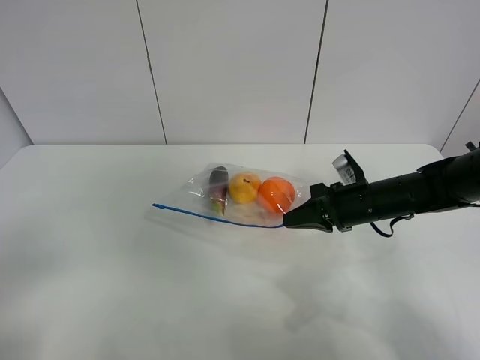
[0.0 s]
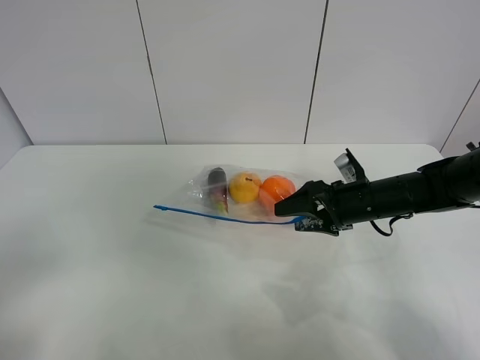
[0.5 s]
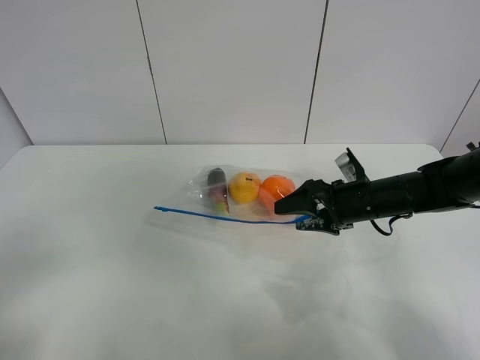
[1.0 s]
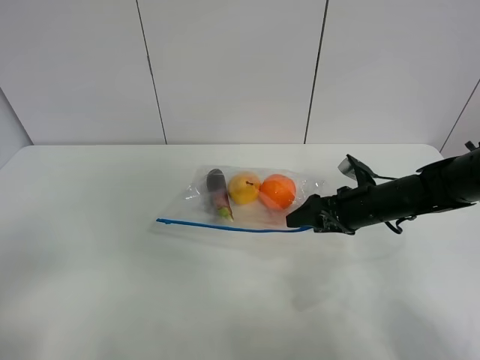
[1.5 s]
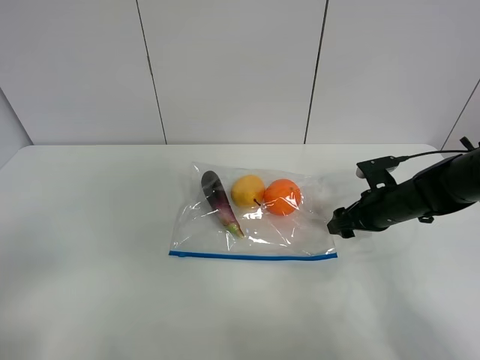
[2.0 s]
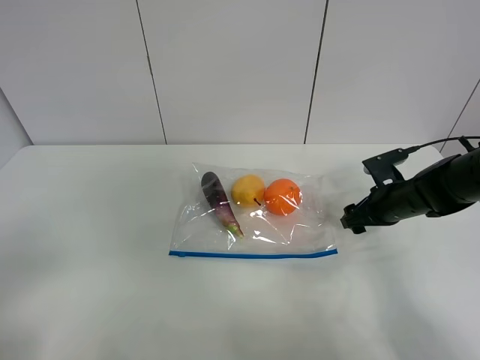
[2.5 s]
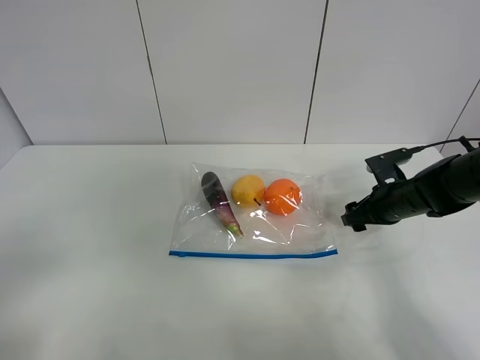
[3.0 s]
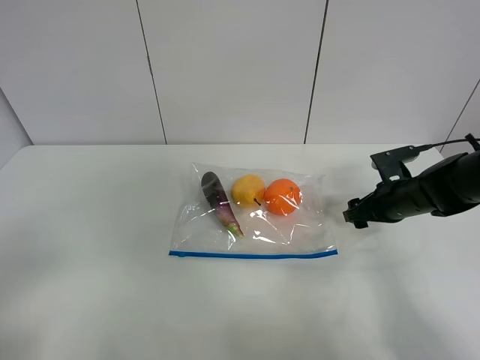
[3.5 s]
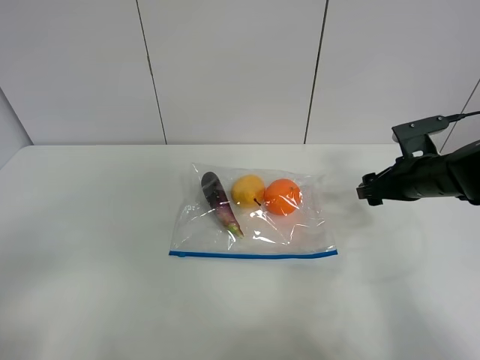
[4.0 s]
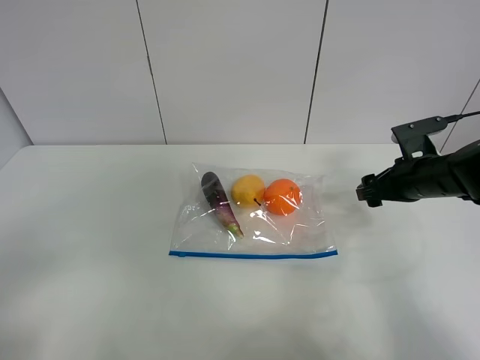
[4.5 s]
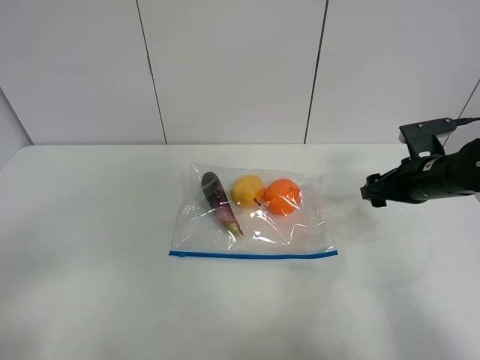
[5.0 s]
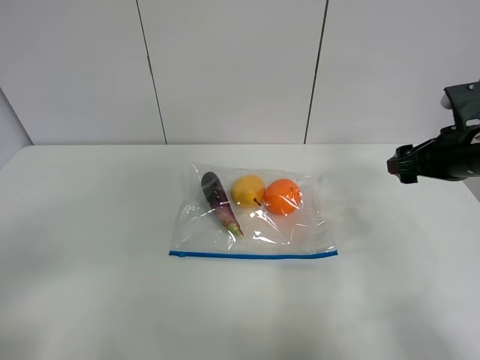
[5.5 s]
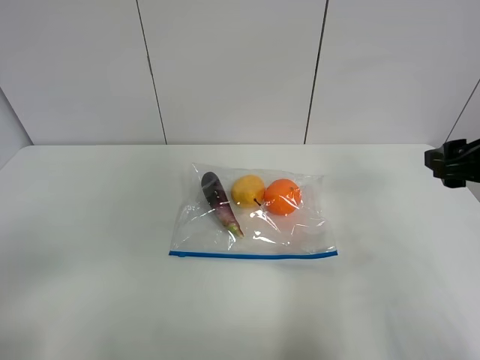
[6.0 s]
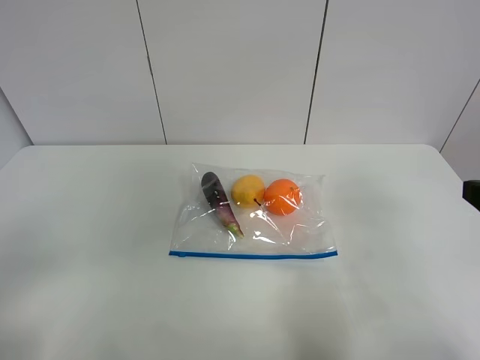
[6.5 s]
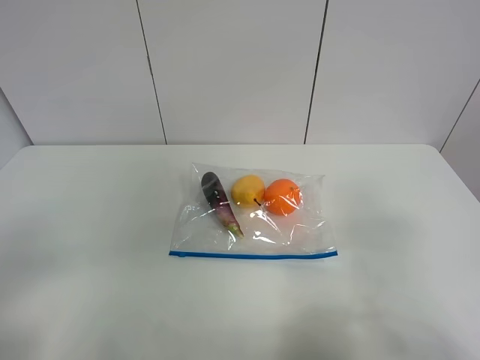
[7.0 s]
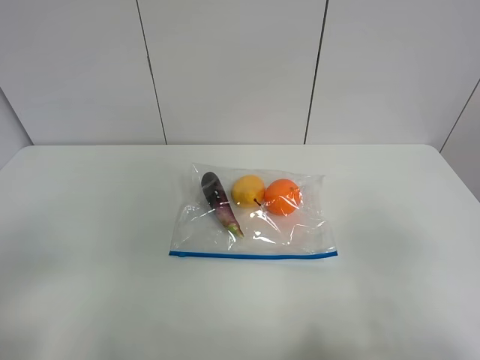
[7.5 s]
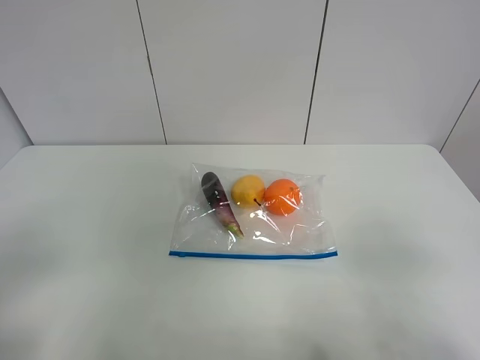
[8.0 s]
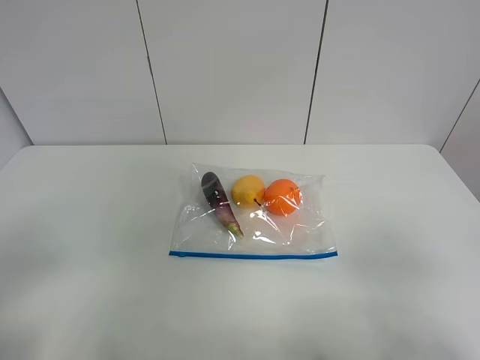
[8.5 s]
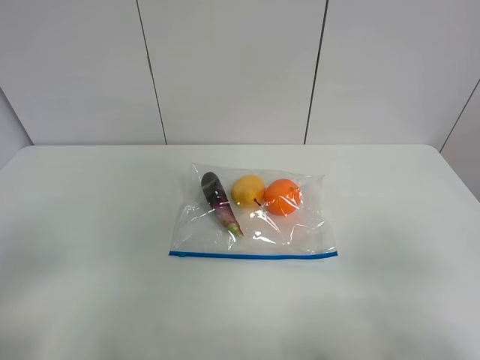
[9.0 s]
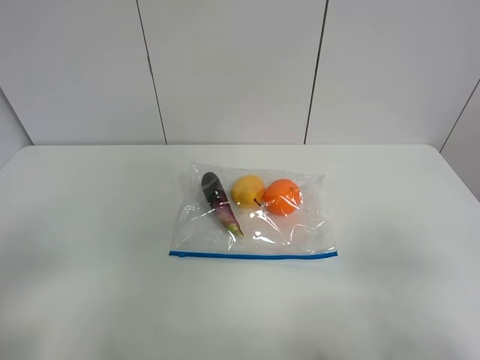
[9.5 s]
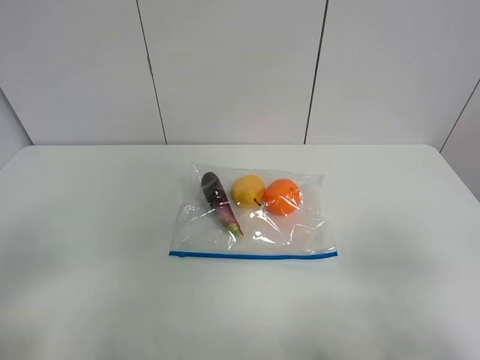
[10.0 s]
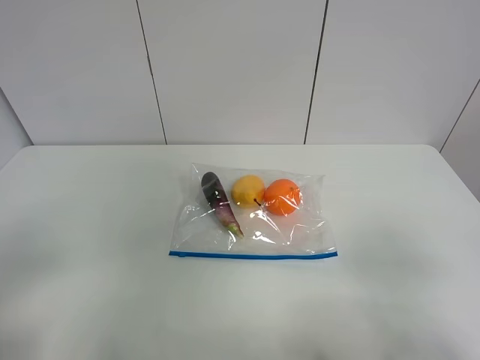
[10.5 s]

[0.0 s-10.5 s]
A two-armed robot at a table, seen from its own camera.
Step, 0.0 to 2.0 s: Place the fruit bag with right gripper.
0.0 to 2.0 s: The right gripper moves to the right, roughly 5 cm, and opens.
2.0 to 4.0 s: The right gripper moves upward, roughly 5 cm.
4.0 to 6.5 s: The right gripper goes roughly 25 cm backward and upward.
8.5 to 10.5 s: Both grippers stay about where they are.

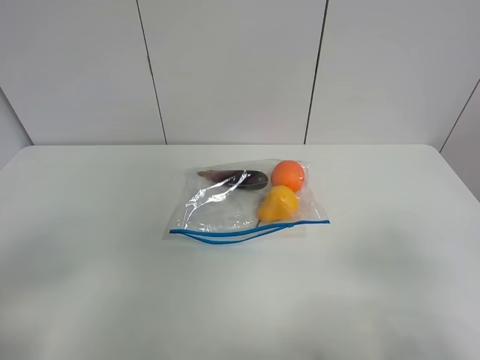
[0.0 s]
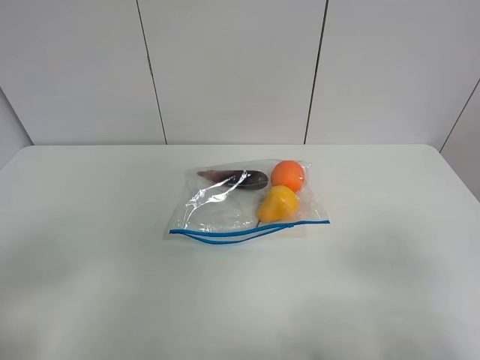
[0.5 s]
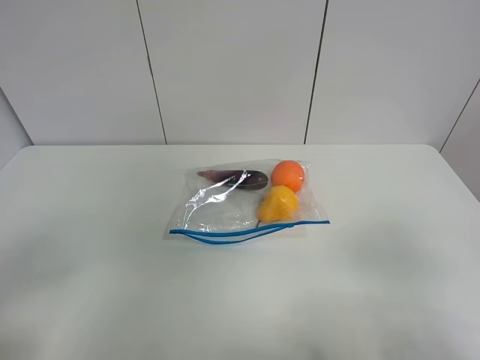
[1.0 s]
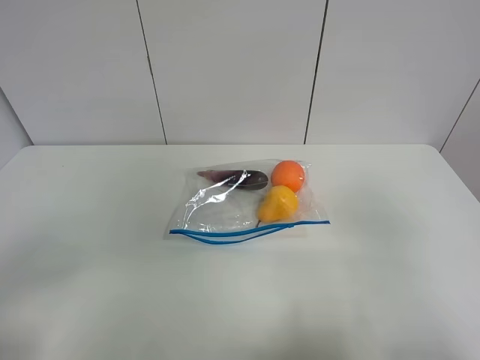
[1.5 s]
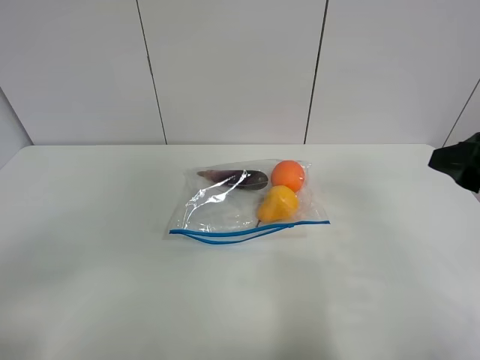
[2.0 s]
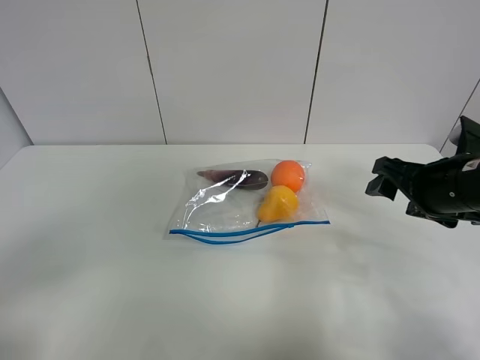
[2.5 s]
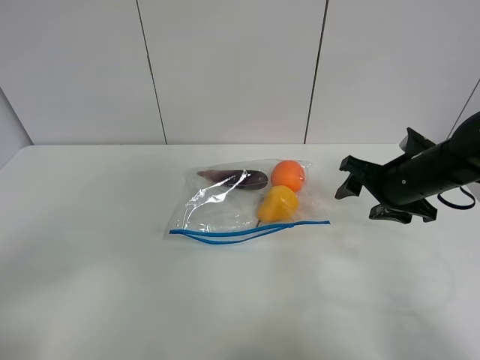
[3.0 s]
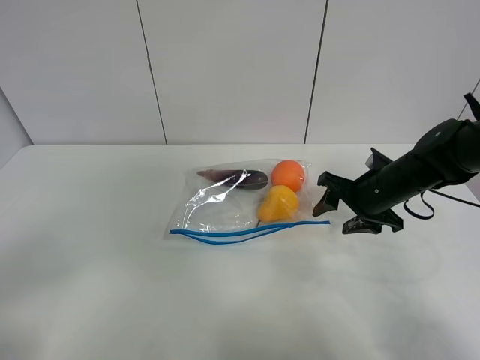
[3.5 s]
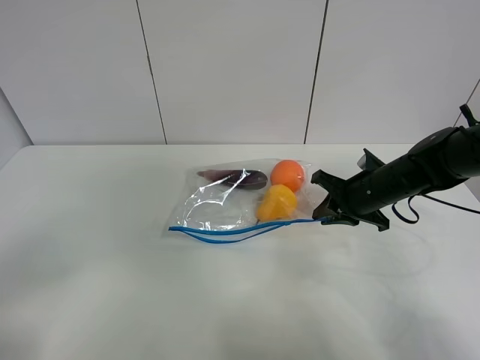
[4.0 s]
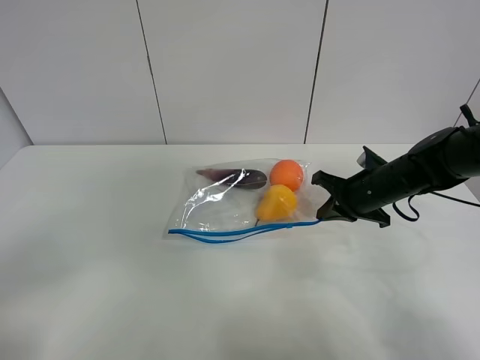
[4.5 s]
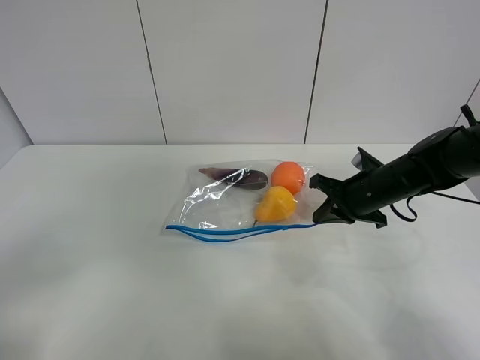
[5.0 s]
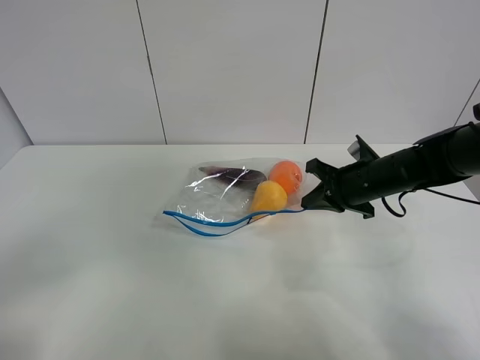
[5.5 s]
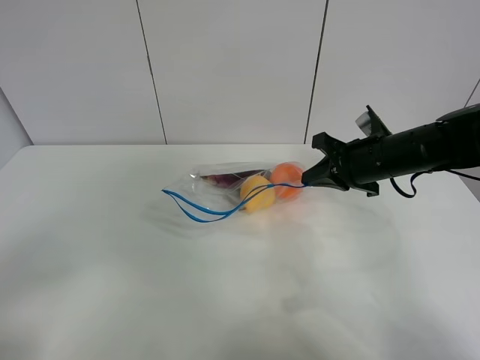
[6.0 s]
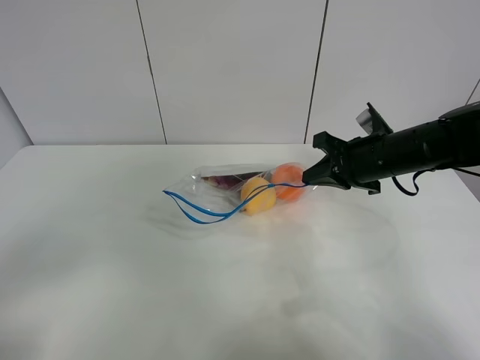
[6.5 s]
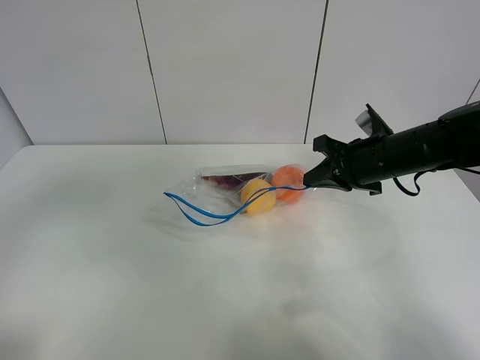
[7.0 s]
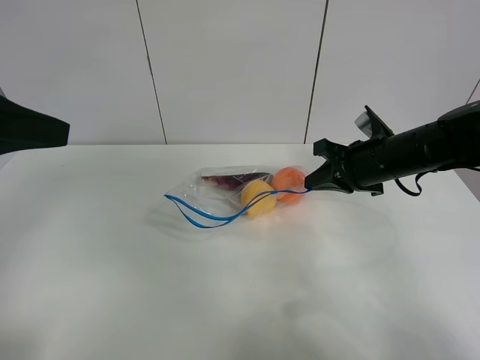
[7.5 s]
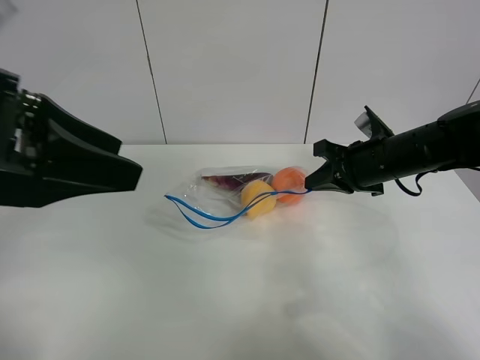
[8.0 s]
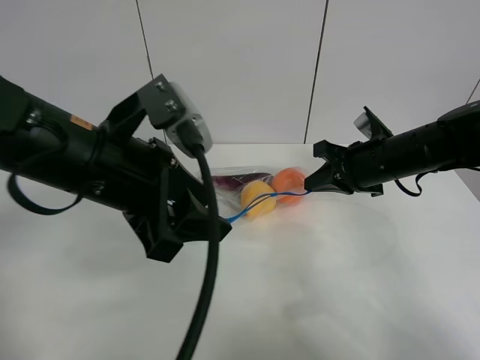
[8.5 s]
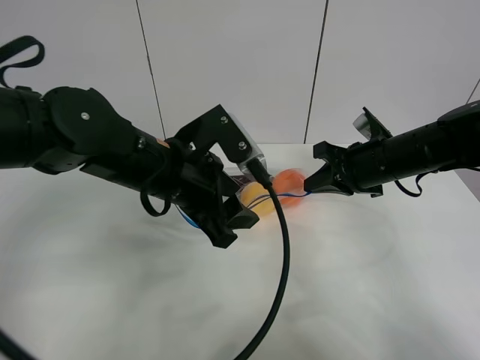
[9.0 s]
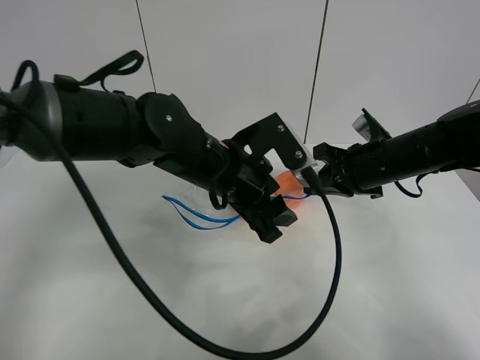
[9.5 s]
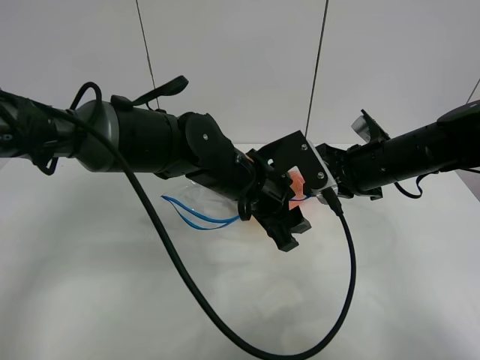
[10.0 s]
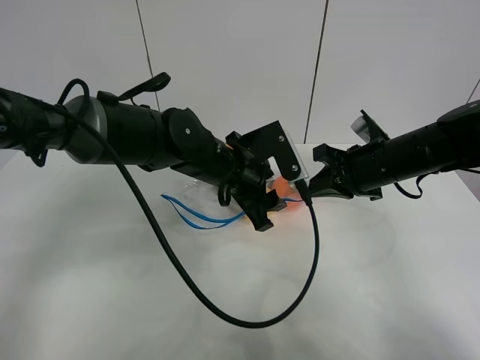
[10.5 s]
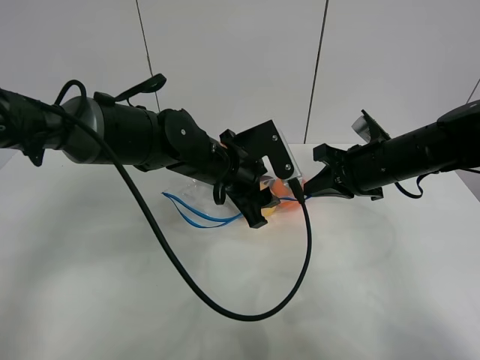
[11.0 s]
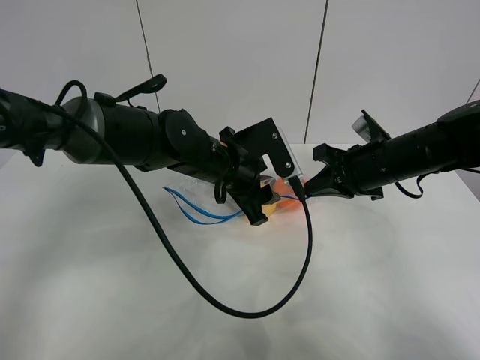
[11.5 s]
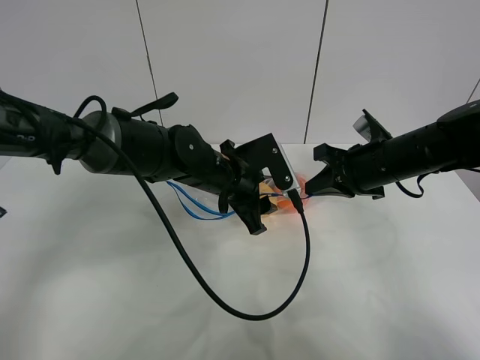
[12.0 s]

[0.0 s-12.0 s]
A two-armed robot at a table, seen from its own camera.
Step, 0.0 to 4.0 s: Grasp the fruit bag with right gripper.
Step, 4.5 to 6.5 s: Lift the fruit bag with your right gripper.
0.0 to 2.0 s: The right gripper heads forward, covering about 15 cm.
2.0 to 4.0 s: The right gripper is displaced forward and downward by approximately 25 cm, and closes its fingers.
4.0 to 6.0 s: The right gripper shifts approximately 5 cm upward.
6.0 to 8.0 s: The left gripper is displaced forward and to the right by about 20 cm.
8.0 to 10.0 s: The left gripper moves to the right, downward and forward, roughly 30 cm.
10.0 to 12.0 s: The left gripper moves roughly 5 cm.

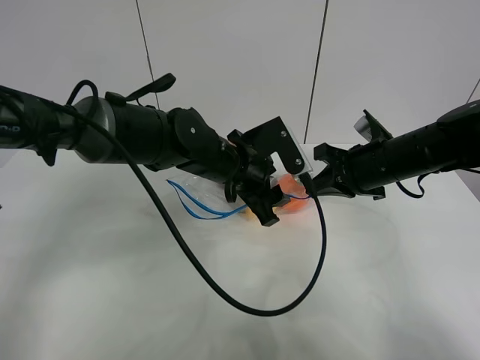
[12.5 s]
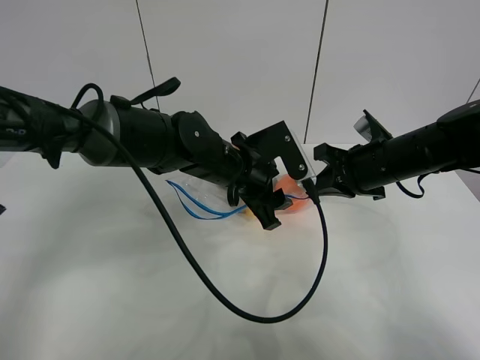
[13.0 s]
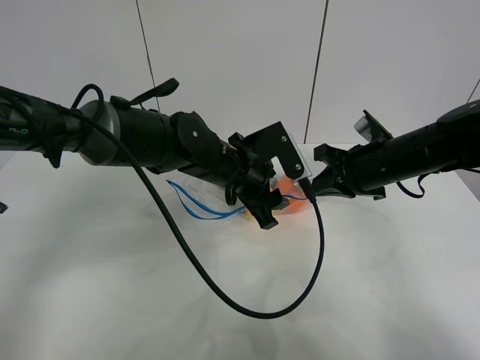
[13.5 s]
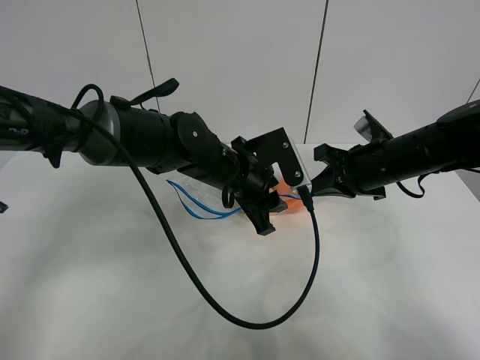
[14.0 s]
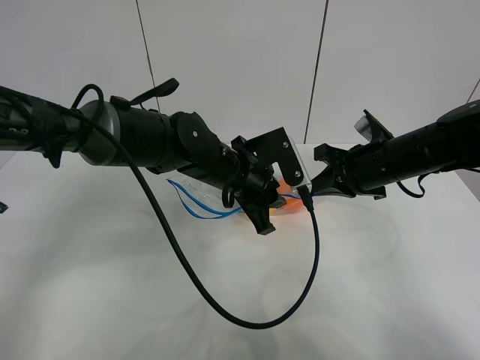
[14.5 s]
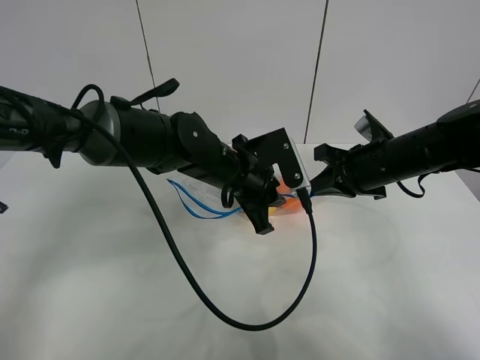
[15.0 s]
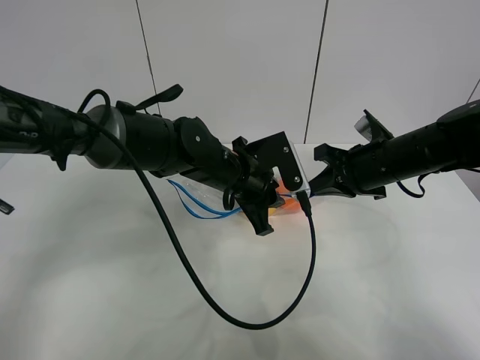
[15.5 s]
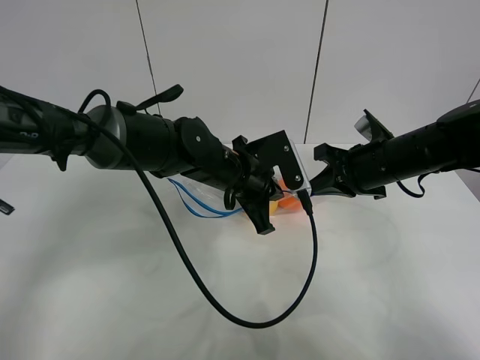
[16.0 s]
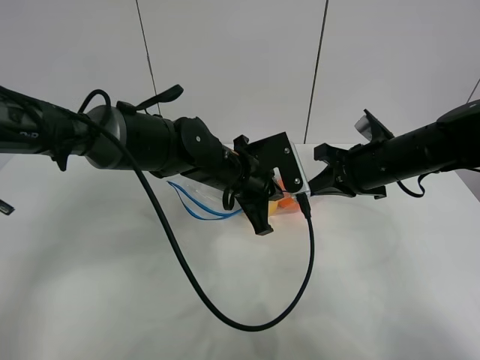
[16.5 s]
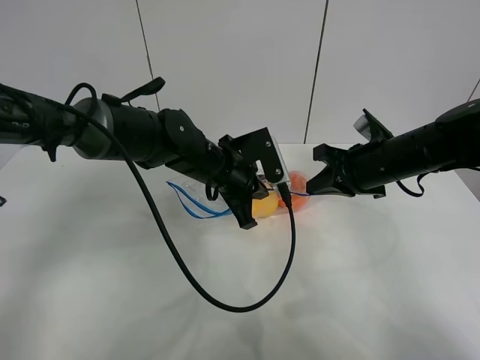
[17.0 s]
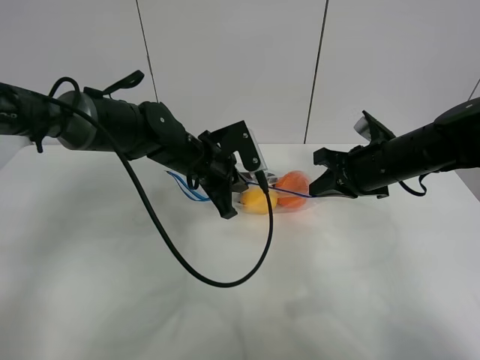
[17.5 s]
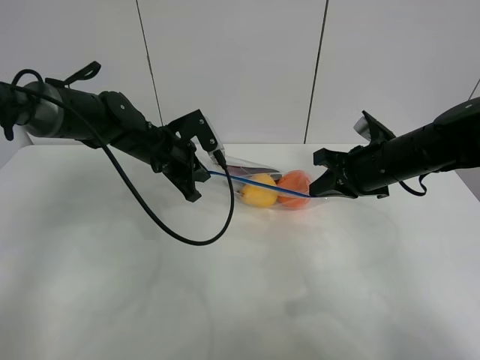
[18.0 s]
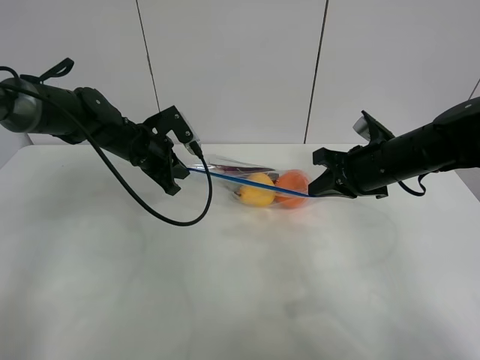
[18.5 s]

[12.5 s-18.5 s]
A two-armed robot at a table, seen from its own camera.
12.5 to 14.5 s: The left gripper closes.
14.5 to 16.5 s: The left gripper closes.
16.5 to 18.5 s: The left gripper moves to the left and forward, approximately 20 cm.
